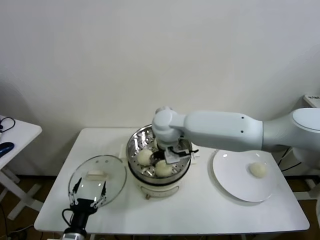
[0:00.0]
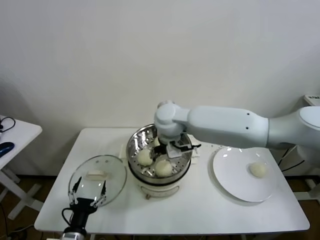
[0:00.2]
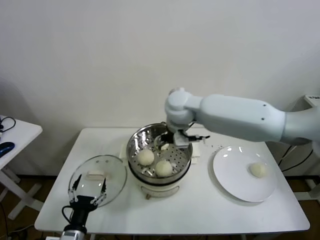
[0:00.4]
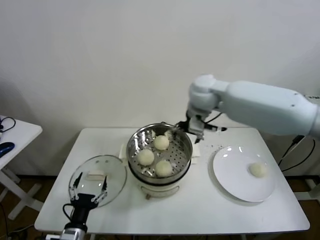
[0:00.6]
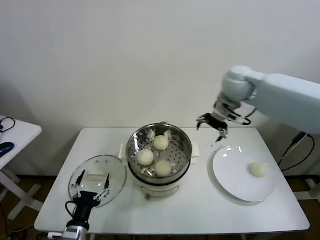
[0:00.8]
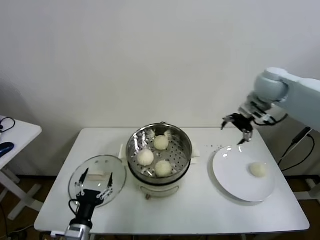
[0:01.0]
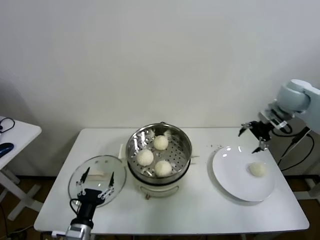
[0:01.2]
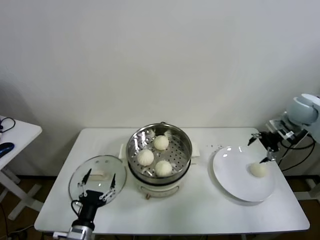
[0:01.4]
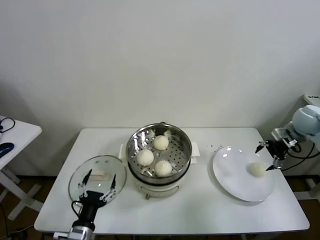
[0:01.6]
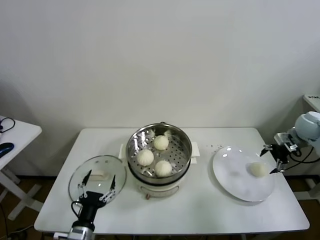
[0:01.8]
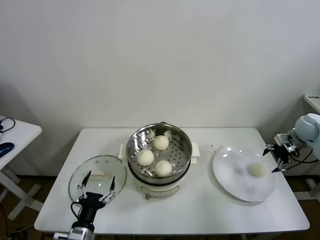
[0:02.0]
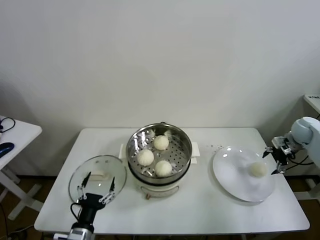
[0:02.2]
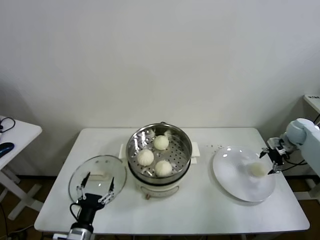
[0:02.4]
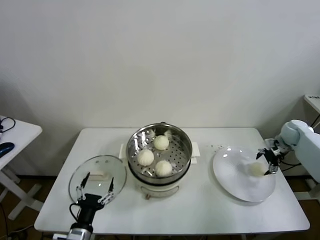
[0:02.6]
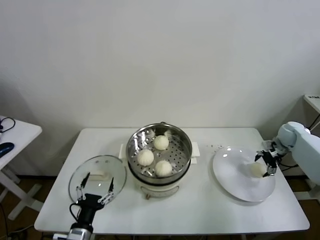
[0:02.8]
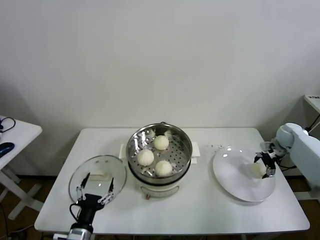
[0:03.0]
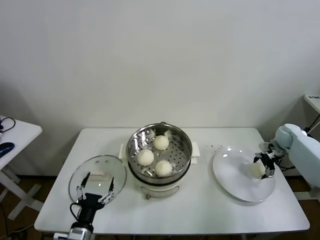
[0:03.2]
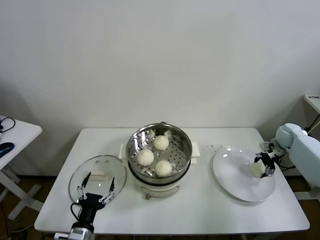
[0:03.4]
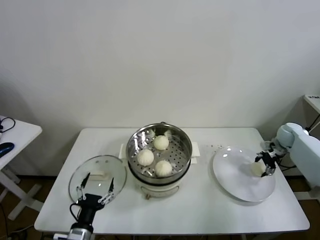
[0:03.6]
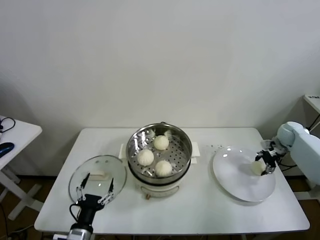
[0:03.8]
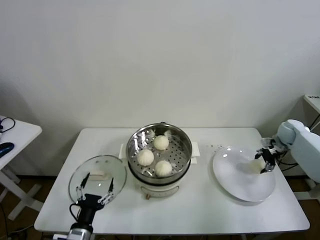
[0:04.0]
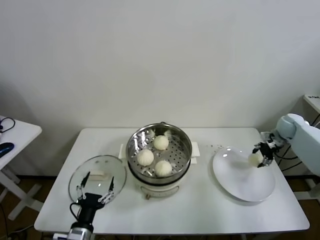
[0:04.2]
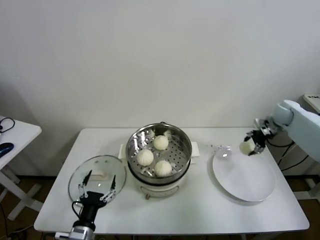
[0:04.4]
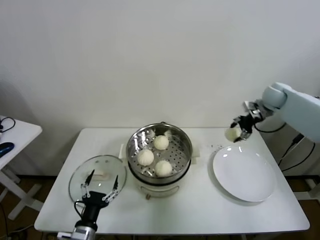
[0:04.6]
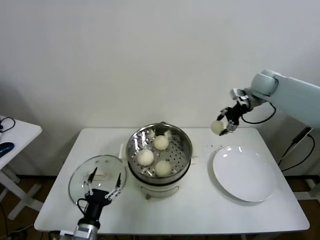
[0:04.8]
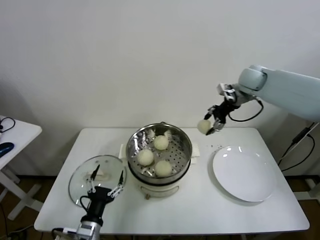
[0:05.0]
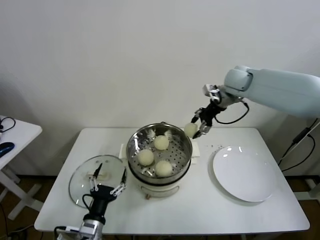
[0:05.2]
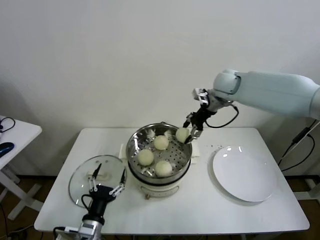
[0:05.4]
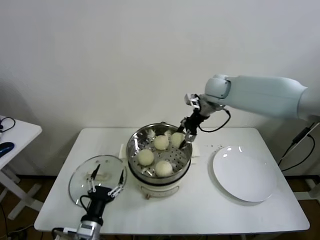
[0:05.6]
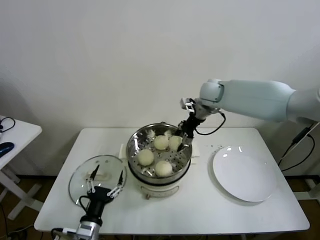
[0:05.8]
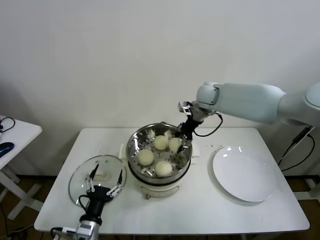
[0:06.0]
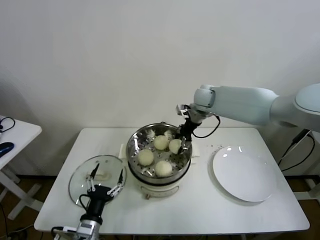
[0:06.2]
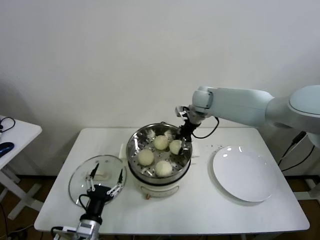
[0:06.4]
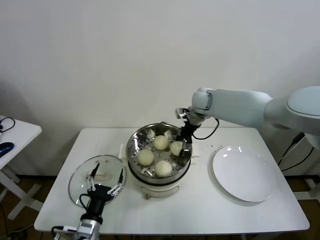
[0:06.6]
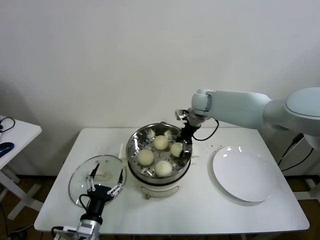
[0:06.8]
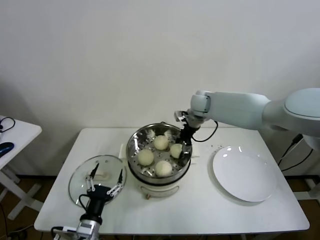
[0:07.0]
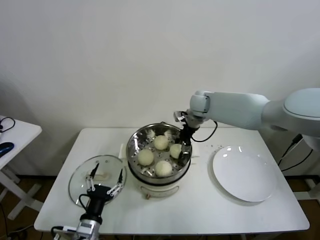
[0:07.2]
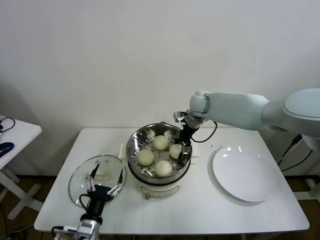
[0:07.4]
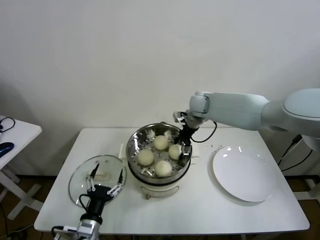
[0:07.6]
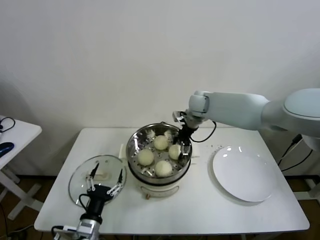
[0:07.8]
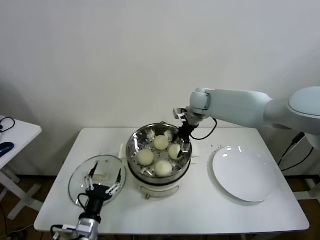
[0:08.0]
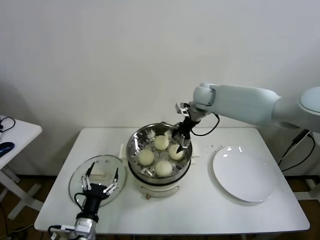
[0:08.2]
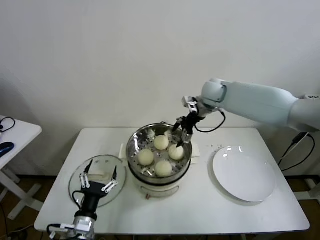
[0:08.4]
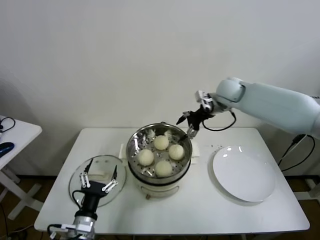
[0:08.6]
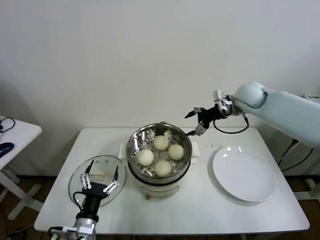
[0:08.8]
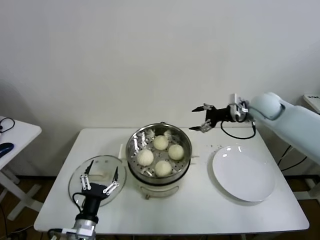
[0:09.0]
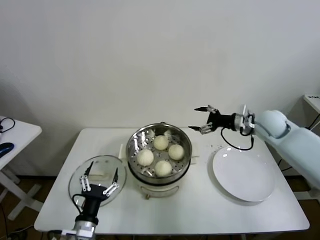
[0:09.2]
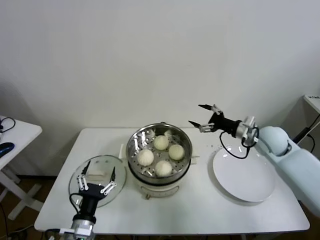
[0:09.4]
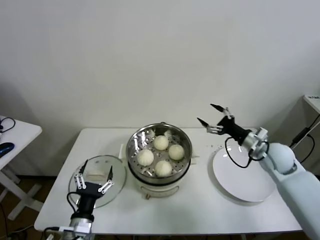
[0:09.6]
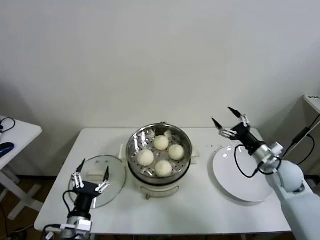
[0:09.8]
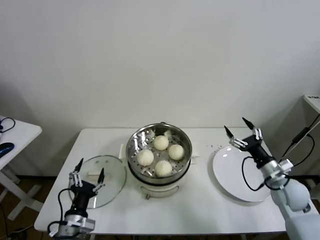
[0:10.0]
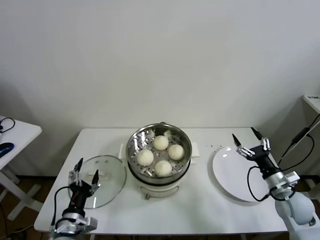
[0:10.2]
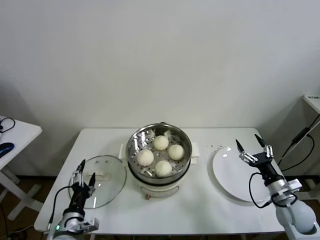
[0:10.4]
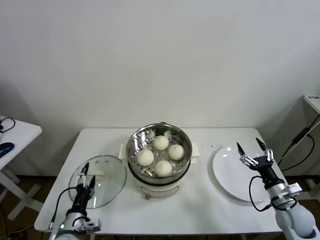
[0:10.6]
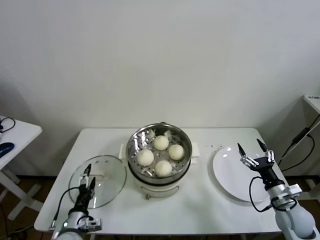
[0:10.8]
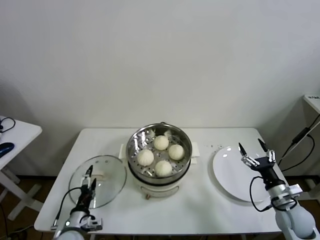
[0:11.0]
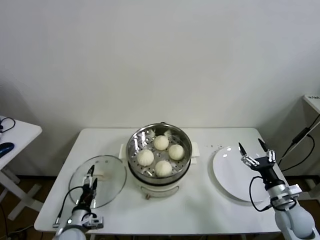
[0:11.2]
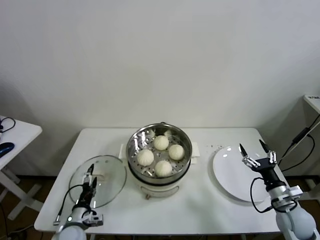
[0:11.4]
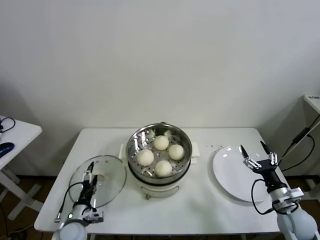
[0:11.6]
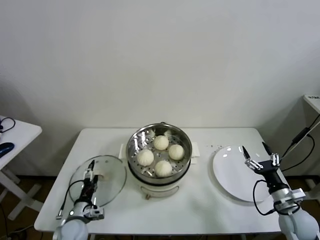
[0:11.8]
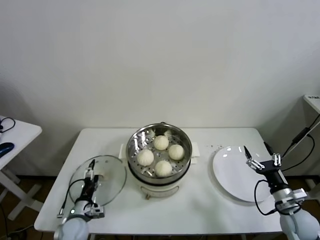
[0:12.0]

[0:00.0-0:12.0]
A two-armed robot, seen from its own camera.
Task of the whole recording: take steamed baozi put them in steamer.
Step, 0:00.0 to 0:03.2: Grasp the baozi in the plate with right gripper.
Step, 0:03.4 to 0:07.8: Place the baozi on the steamer with right gripper.
0:00.0 to 0:01.6: The right gripper moves to the right, about 50 cm.
0:01.6 to 0:03.0: The right gripper shifts approximately 10 cm downward.
0:03.0 to 0:04.4: The right gripper shifts about 10 cm upward, and closes its fingers.
0:04.4 to 0:06.0: The right gripper shifts roughly 30 cm to the left.
0:06.0 to 0:07.6: The right gripper opens up.
0:07.6 to 0:09.0: The right gripper travels to the right and backward by some 20 cm.
0:09.0 to 0:10.4: The left gripper shifts by about 5 cm, while the right gripper shifts roughly 35 cm backward and downward.
0:10.4 to 0:12.0: The left gripper goes approximately 10 cm downward and forward.

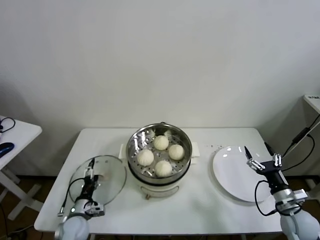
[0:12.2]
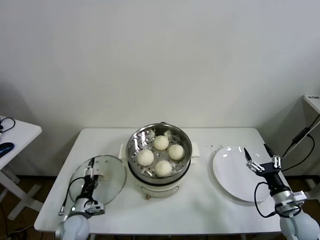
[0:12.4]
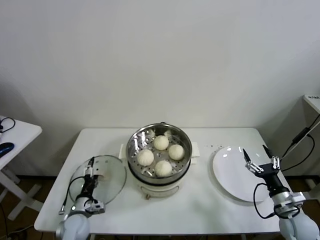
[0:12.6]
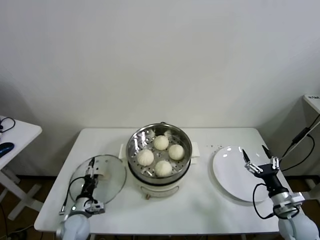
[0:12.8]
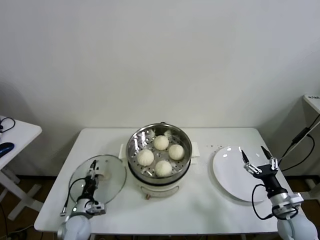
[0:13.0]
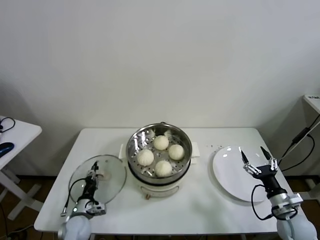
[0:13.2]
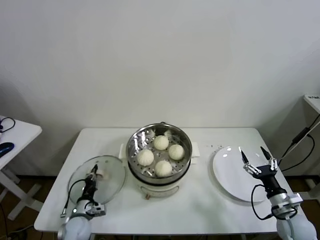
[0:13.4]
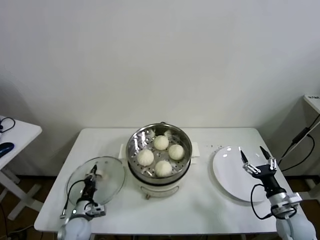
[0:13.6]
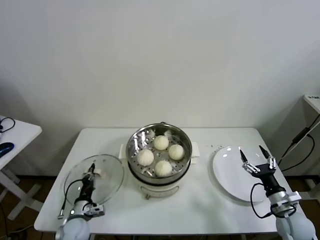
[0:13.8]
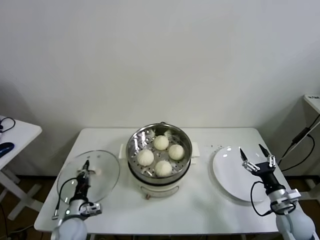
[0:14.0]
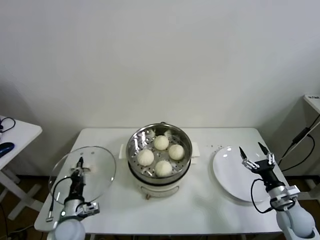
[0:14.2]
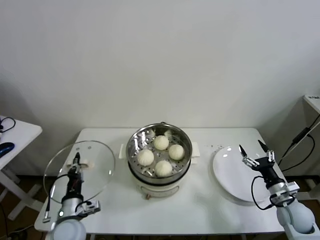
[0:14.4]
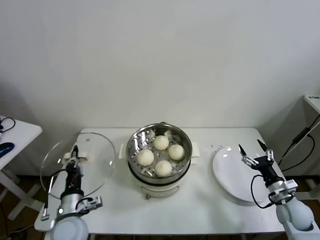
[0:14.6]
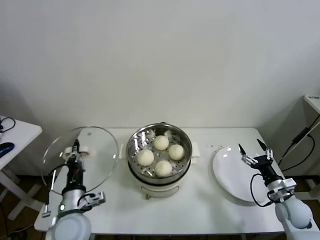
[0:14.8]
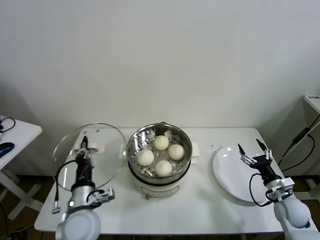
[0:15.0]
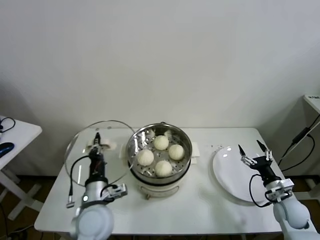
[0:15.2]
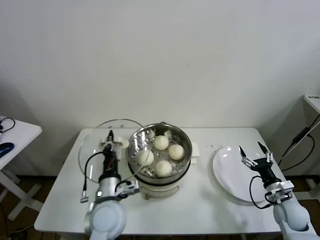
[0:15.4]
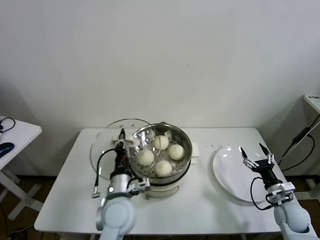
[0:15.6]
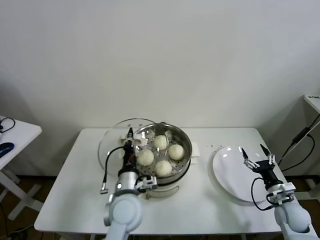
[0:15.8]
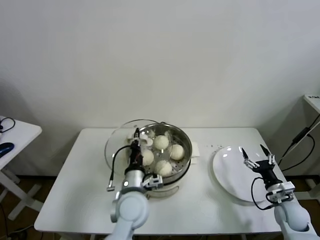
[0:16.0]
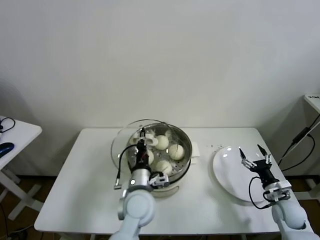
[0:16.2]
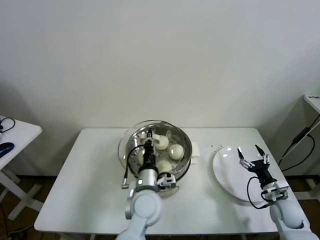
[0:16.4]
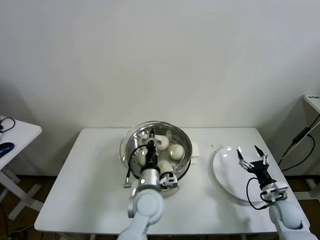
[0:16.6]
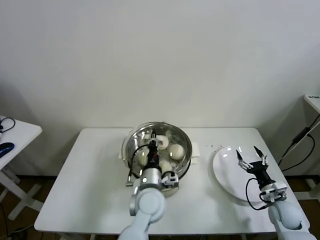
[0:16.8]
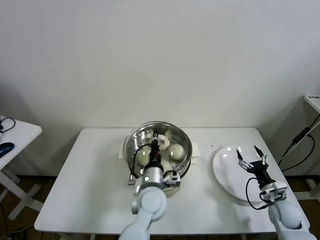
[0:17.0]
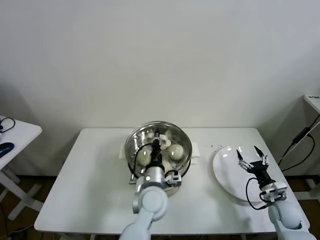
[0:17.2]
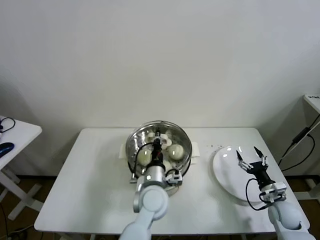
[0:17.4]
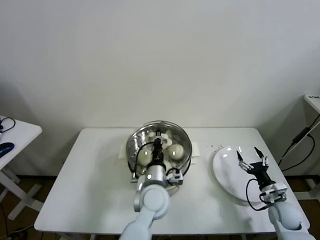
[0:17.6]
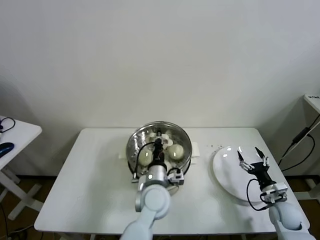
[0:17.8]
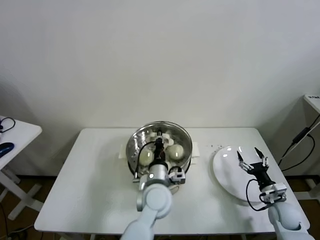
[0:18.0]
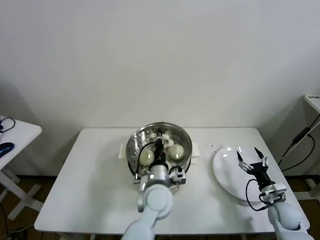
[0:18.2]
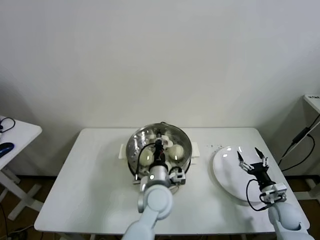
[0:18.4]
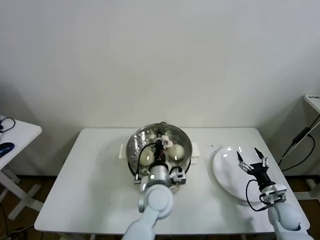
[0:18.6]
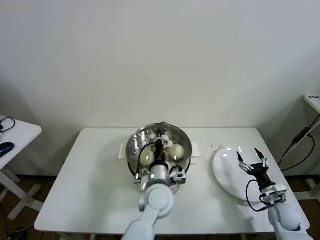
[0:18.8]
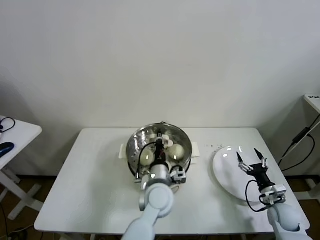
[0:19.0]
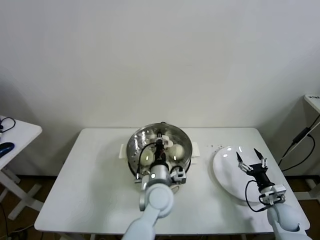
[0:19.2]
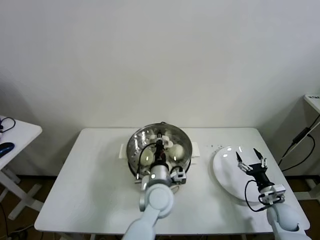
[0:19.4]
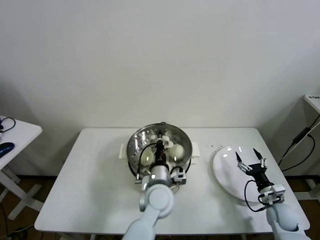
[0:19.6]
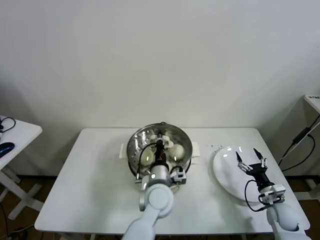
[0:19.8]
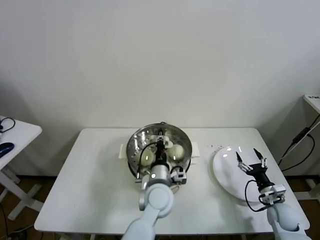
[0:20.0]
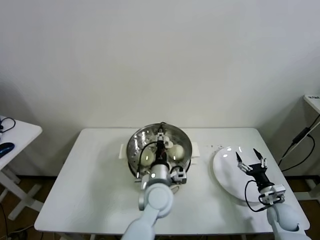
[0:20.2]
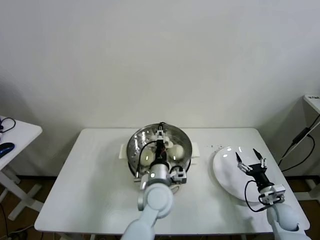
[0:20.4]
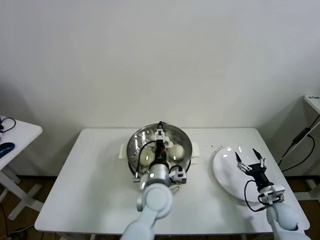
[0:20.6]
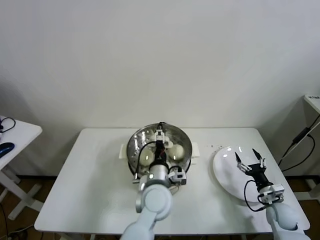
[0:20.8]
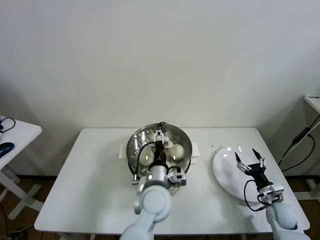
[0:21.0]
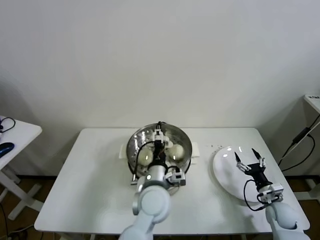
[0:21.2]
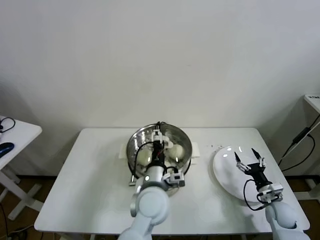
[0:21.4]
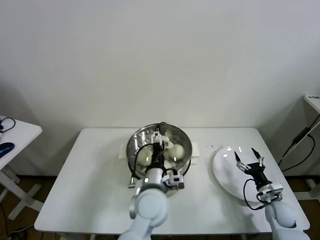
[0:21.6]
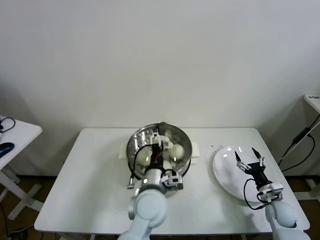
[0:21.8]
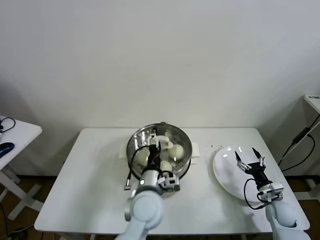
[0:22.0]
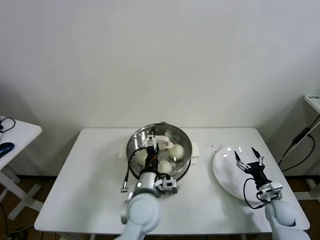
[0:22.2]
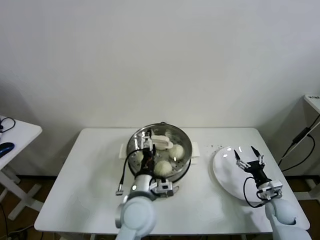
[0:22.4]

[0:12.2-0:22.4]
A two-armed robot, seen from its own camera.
Task of the whole recording: take steamed baozi put them in steamer.
Step, 0:13.6 to 0:20.4: Place the pot lid on the steamer with left gripper.
0:12.2 to 0:13.6: The left gripper closes its fingers.
0:13.6 to 0:15.2: The right gripper moves some 5 cm; the left gripper is displaced upward and to the right by roughly 25 cm.
0:15.2 to 0:16.6: The left gripper goes roughly 15 cm to the right.
0:16.6 to 0:18.0: There are only small adjustments of the grippers.
0:18.0 to 0:19.4: Both grippers stay about where they are.
0:19.4 to 0:21.0: The left gripper opens.
0:21.0 to 0:22.4: The left gripper moves roughly 5 cm.
